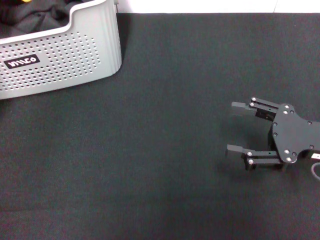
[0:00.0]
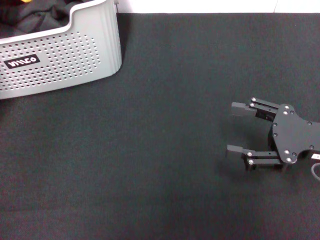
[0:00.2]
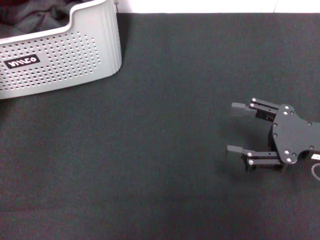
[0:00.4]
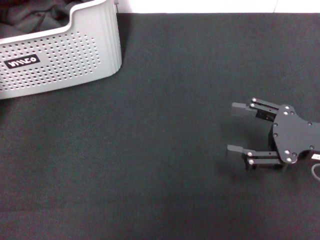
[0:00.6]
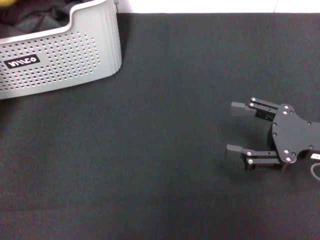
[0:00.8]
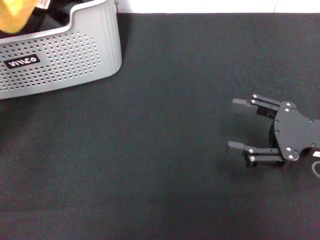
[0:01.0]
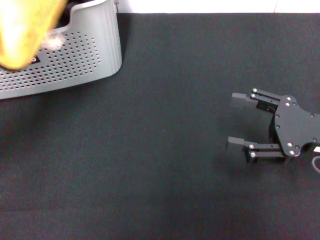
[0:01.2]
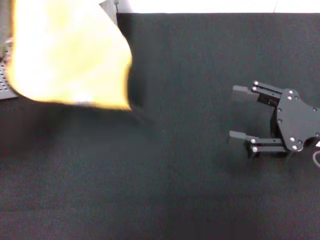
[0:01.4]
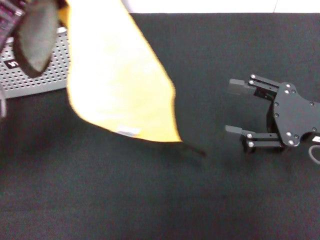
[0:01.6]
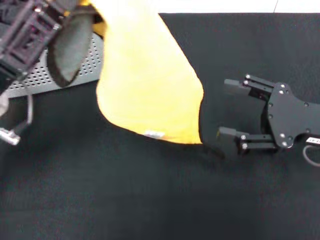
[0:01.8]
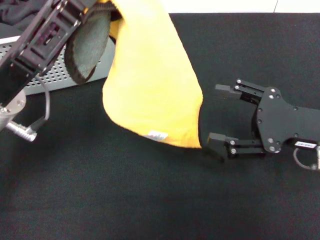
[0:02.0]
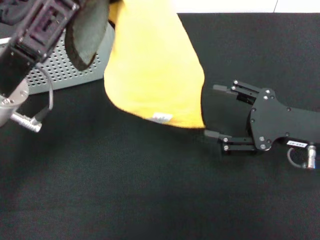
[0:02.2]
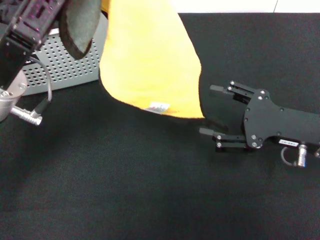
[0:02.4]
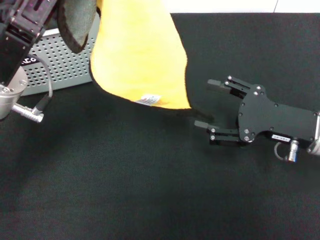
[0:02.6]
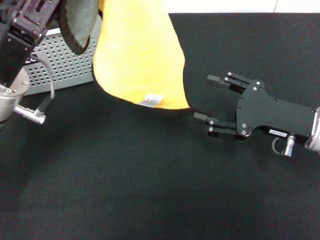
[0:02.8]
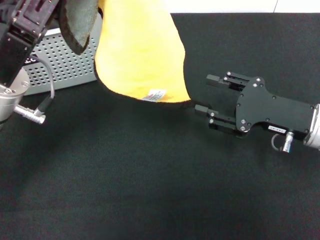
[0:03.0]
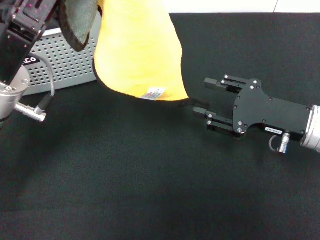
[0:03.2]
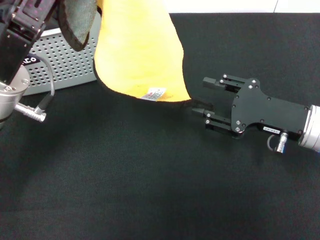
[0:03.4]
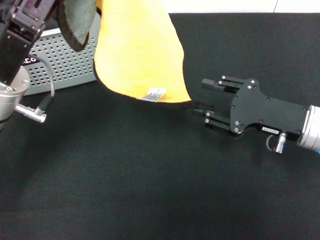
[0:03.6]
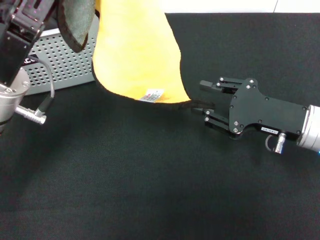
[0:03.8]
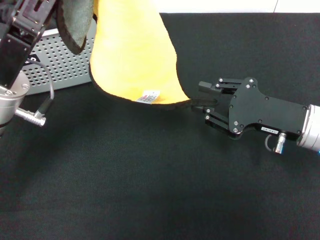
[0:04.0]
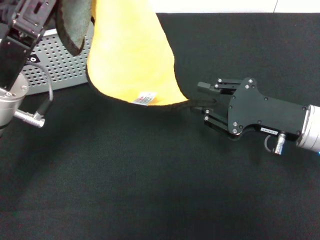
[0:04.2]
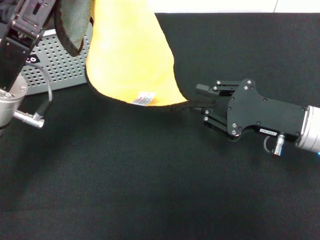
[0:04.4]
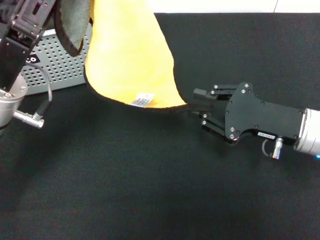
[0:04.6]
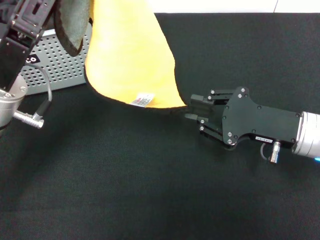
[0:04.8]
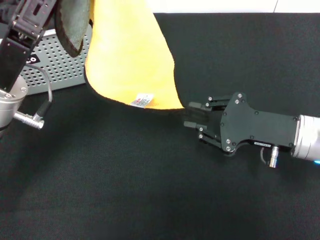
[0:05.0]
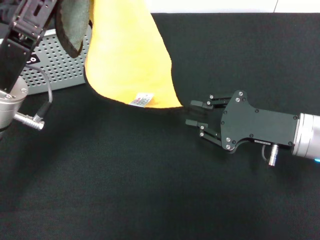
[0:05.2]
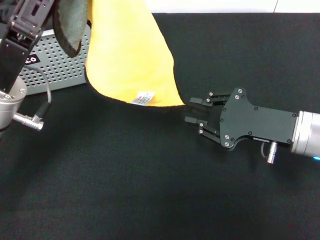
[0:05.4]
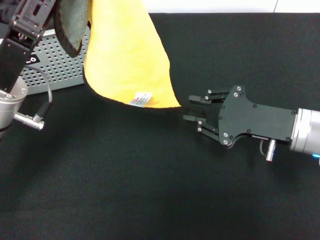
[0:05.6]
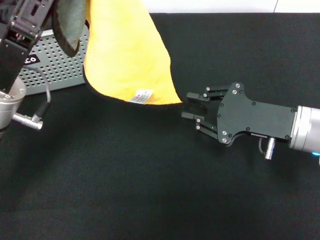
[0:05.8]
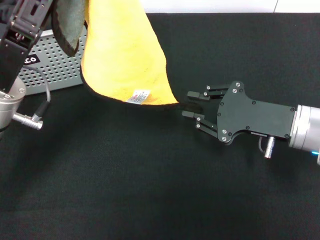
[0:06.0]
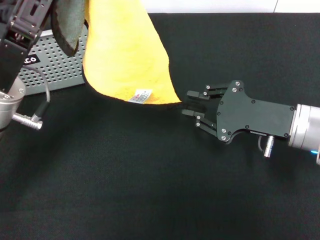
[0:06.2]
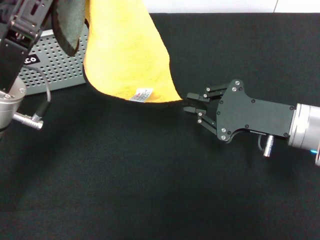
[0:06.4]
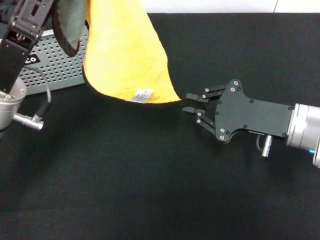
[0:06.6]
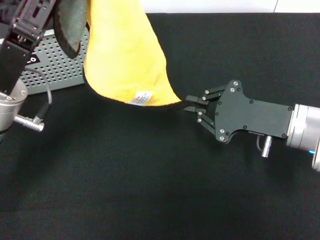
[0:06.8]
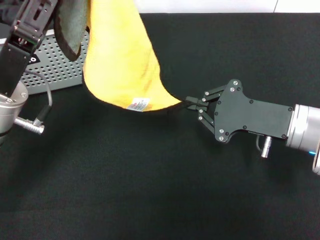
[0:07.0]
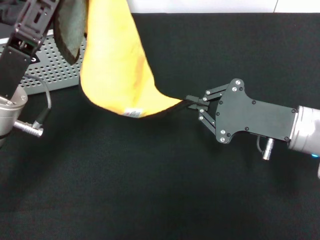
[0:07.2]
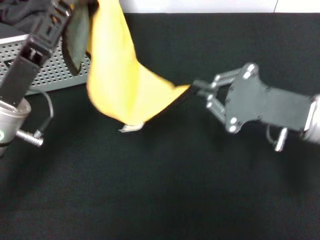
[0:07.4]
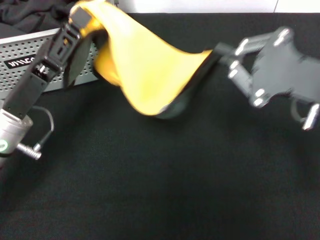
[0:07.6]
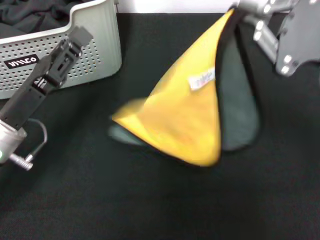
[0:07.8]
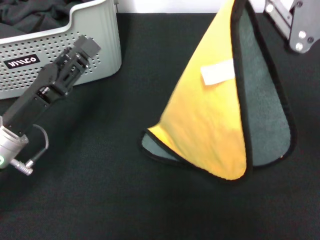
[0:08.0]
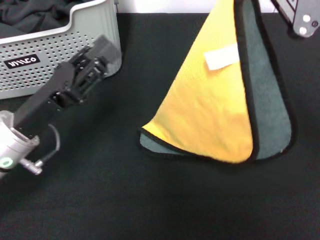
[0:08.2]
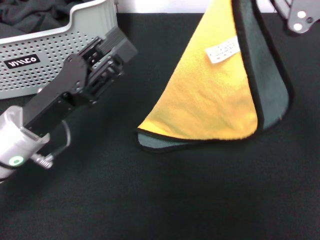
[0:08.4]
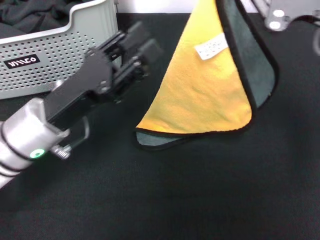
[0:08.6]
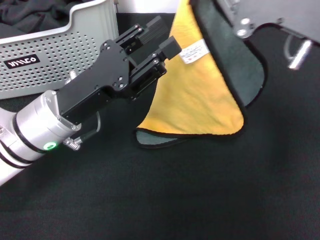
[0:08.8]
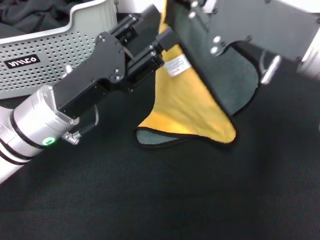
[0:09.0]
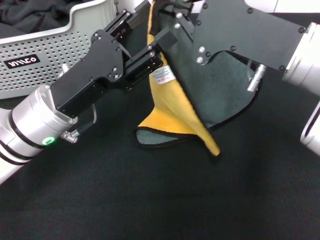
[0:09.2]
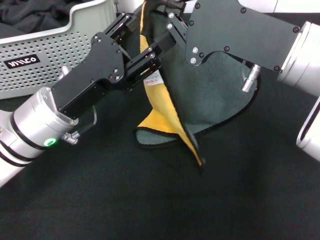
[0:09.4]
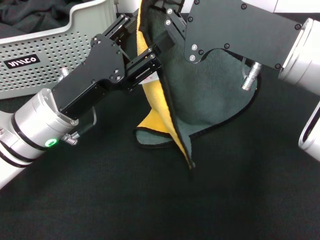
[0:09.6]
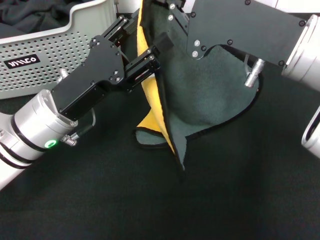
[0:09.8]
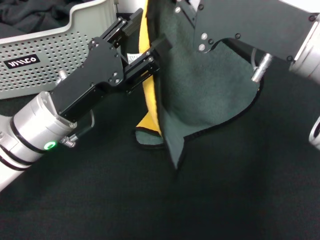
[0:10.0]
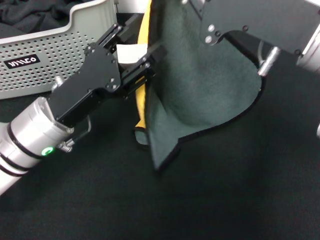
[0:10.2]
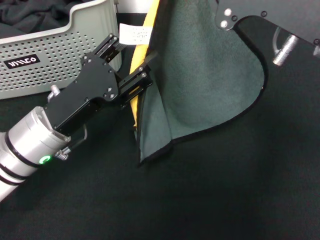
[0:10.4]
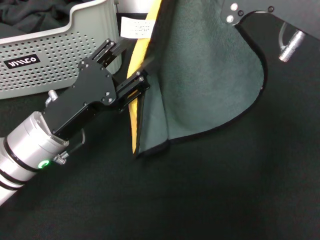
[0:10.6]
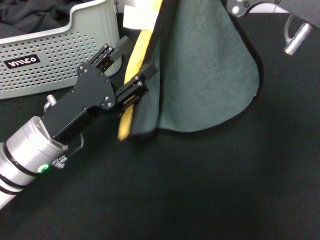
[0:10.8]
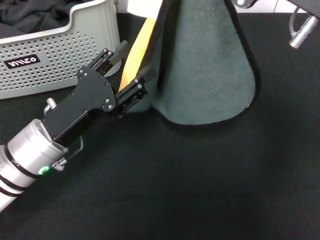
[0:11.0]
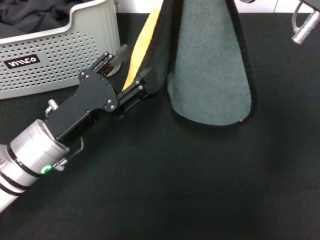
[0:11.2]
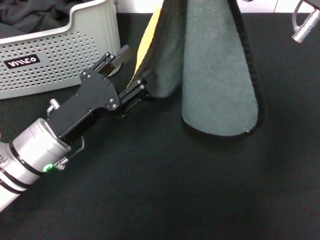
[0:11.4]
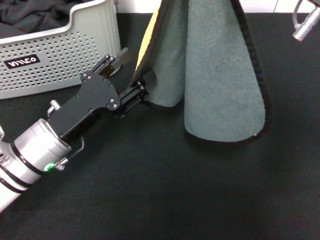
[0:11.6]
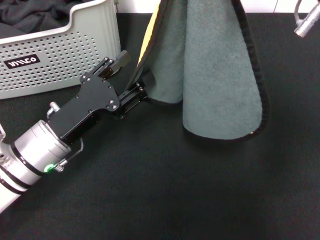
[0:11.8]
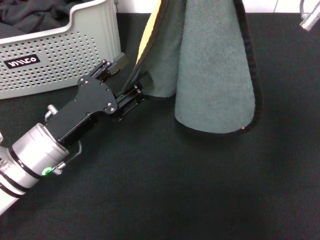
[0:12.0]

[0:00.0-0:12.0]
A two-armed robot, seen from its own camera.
Task of the whole recording: pick up the towel from the storage box and lay it flat on the black tablecloth.
Step, 0:00.0 to 0:06.8: Spread the towel flat with the left gripper.
0:00.0 to 0:01.6: The left gripper is displaced to the right and backward by about 10 cm.
0:01.6 to 0:03.0: The left gripper ends up about 5 cm from where it was.
0:03.0 to 0:04.4: The right gripper closes.
0:04.4 to 0:06.0: The grippers move only a little.
0:06.0 to 0:07.6: The left gripper changes place by about 5 cm; the right gripper goes approximately 5 cm upward.
0:07.6 to 0:09.0: The left gripper shifts approximately 5 cm to the right, and opens its fingers. The right gripper heads upward and to the left, covering some 10 cm.

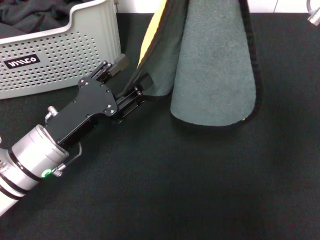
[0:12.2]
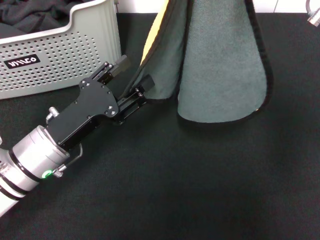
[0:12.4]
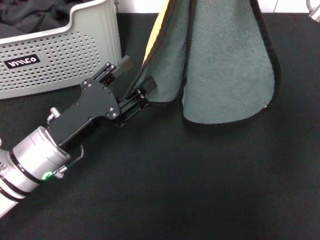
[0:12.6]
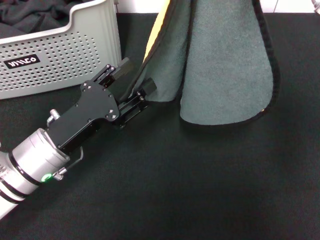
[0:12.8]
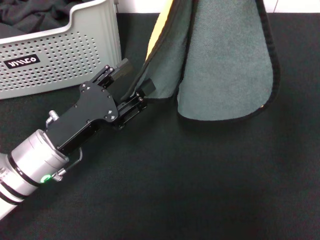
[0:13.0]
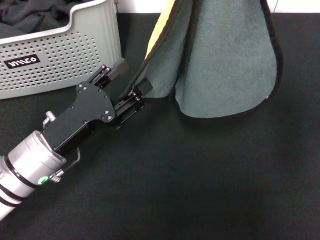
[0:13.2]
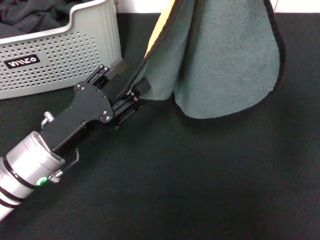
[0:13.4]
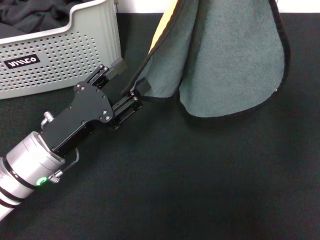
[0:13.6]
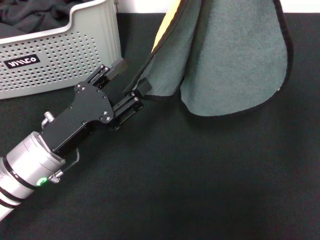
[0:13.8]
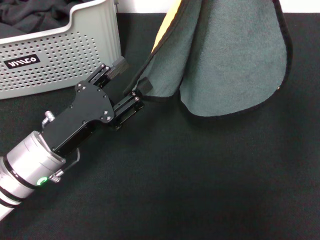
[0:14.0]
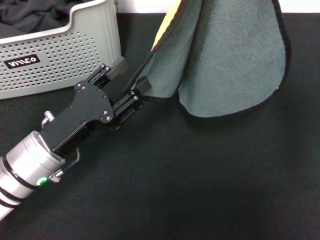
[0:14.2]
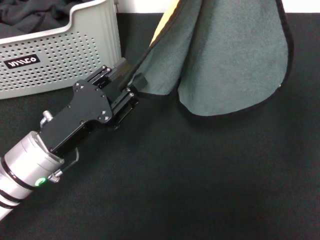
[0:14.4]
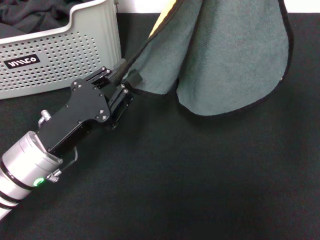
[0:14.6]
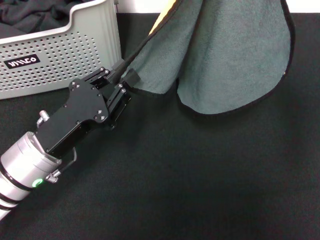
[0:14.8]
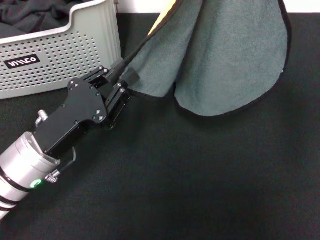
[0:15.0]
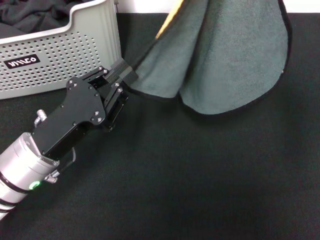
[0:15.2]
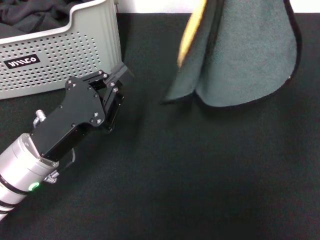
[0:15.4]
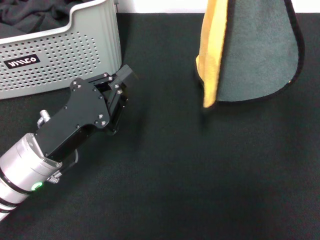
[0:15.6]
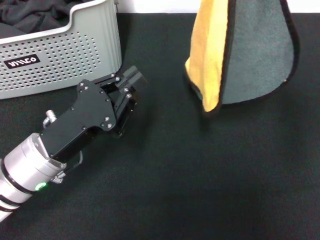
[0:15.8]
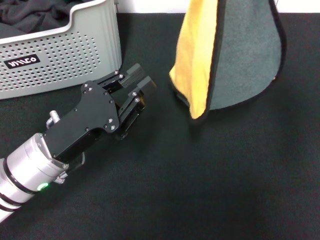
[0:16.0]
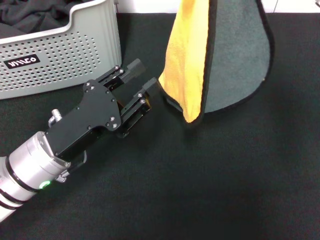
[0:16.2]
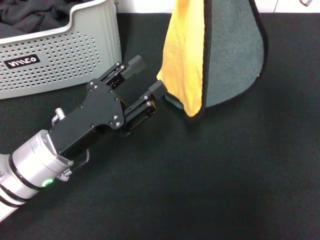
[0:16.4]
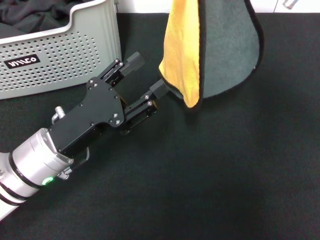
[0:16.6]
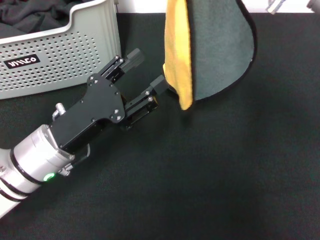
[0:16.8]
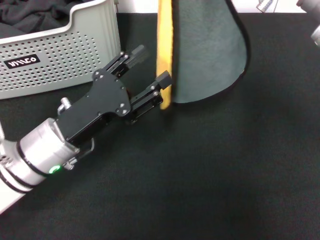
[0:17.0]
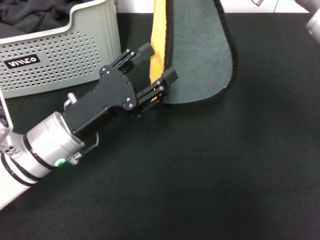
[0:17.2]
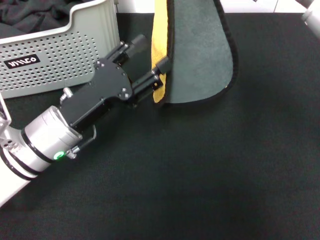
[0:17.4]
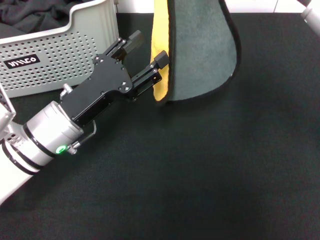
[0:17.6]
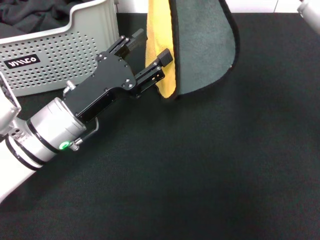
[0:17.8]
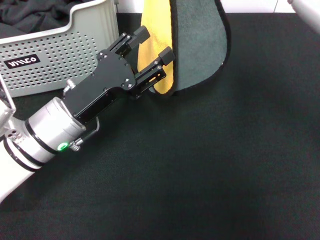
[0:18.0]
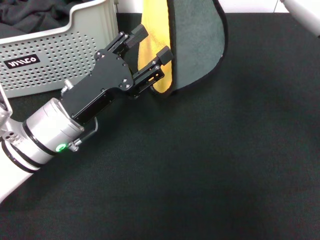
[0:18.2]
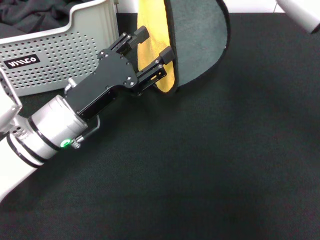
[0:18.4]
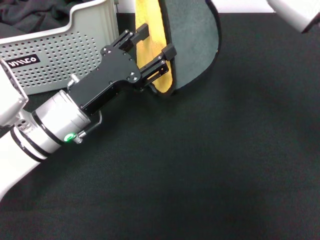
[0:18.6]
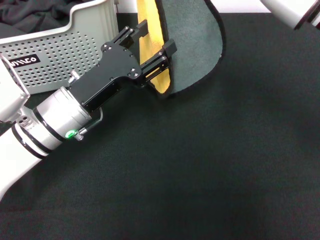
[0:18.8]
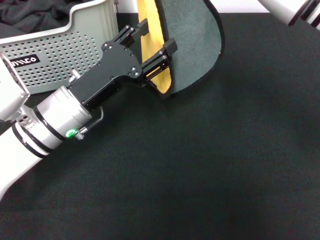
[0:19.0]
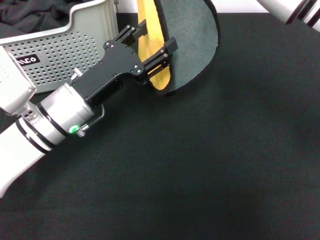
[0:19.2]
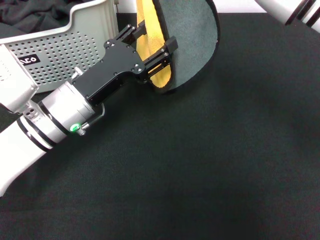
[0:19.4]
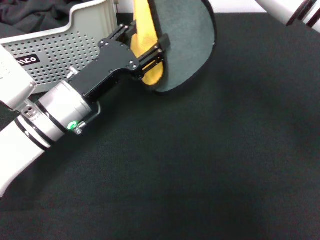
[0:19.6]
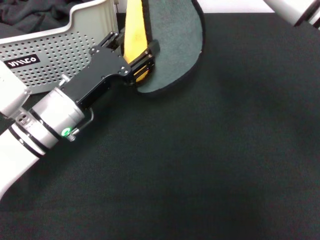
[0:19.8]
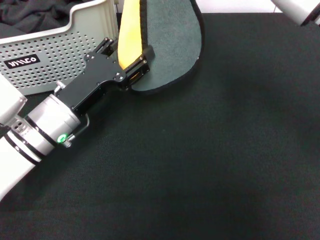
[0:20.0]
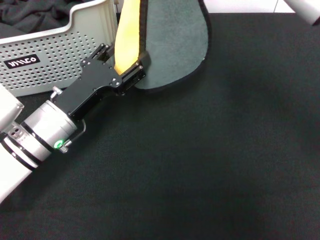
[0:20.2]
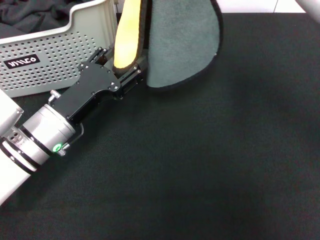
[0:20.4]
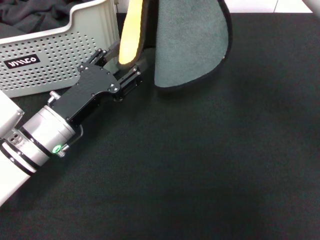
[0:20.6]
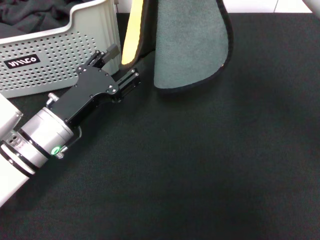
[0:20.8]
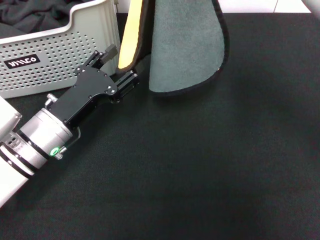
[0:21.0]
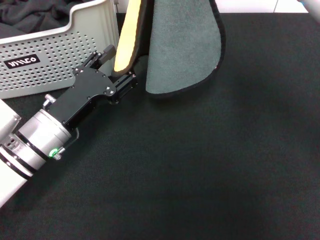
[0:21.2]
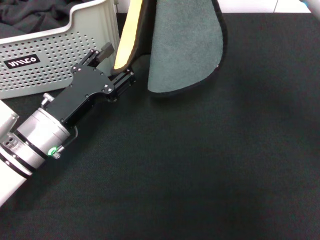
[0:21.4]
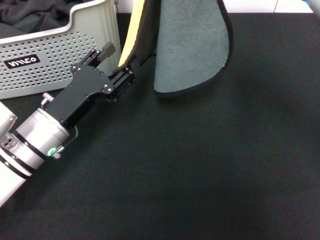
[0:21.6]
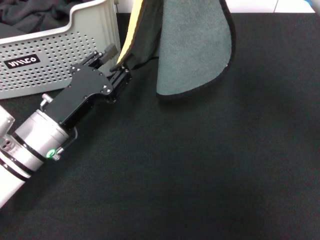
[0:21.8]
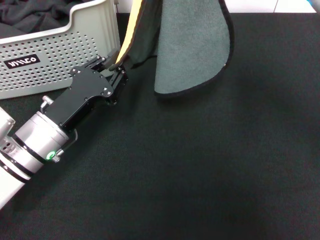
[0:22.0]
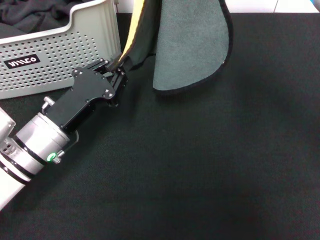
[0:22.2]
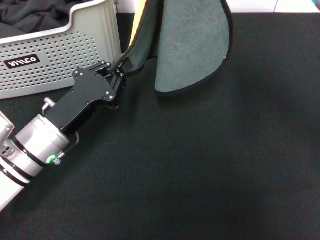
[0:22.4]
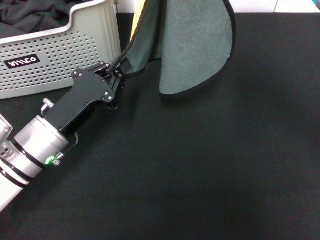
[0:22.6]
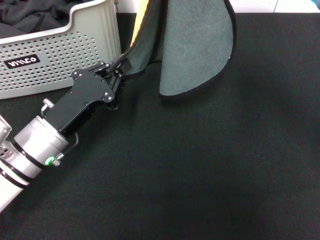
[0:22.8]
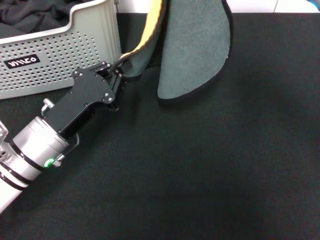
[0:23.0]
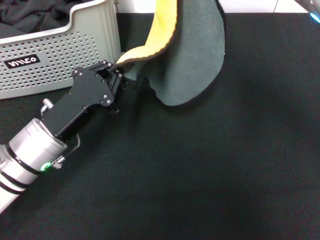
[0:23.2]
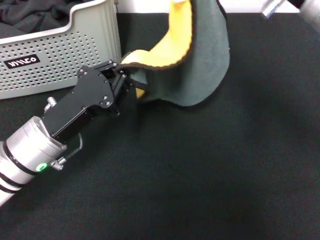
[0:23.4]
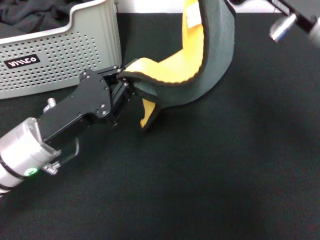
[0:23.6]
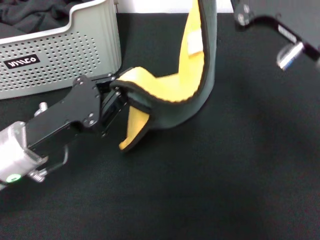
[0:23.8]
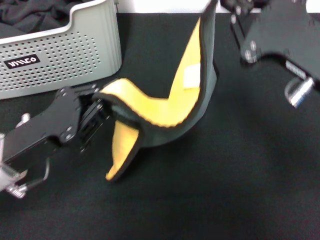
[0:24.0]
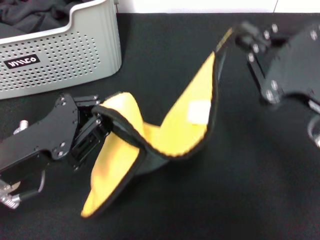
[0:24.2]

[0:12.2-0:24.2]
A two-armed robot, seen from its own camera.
Task of the whole recording: pick up the towel from the storage box and lay it flat on the black tablecloth.
0:12.2 to 0:13.8: There are only small adjustments of the grippers.
0:13.8 to 0:15.2: The left gripper closes up.
0:15.2 to 0:16.6: The left gripper opens.
0:16.6 to 0:18.2: The right gripper ends up roughly 5 cm from where it was.
0:18.2 to 0:21.2: The grippers move only a little.
0:21.2 to 0:22.6: The left gripper closes.
0:22.6 to 0:24.2: The right gripper travels backward, to the right and downward by roughly 15 cm. Meanwhile the left gripper travels upward and backward by approximately 10 cm.
